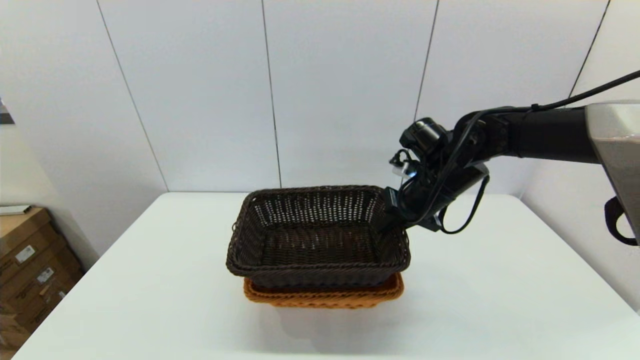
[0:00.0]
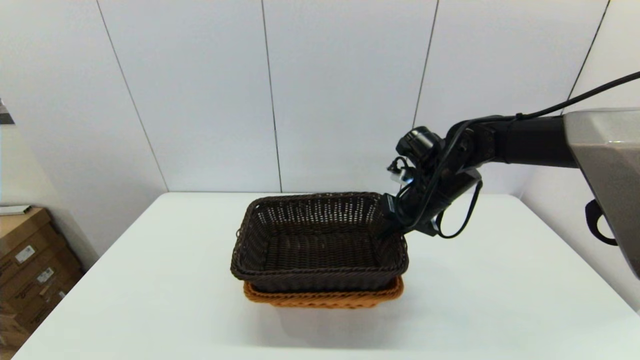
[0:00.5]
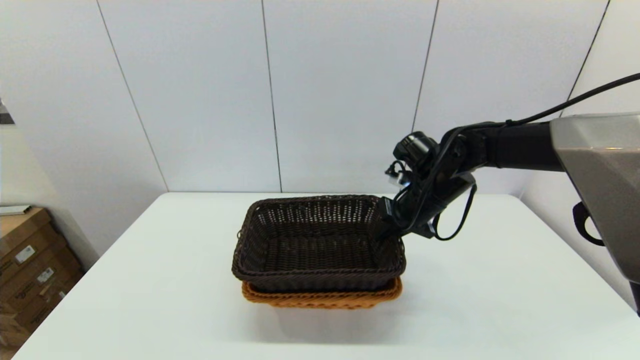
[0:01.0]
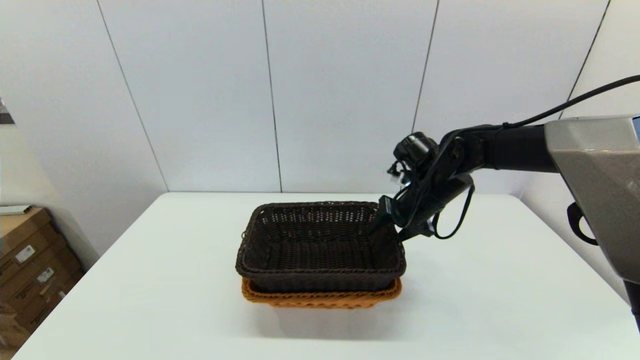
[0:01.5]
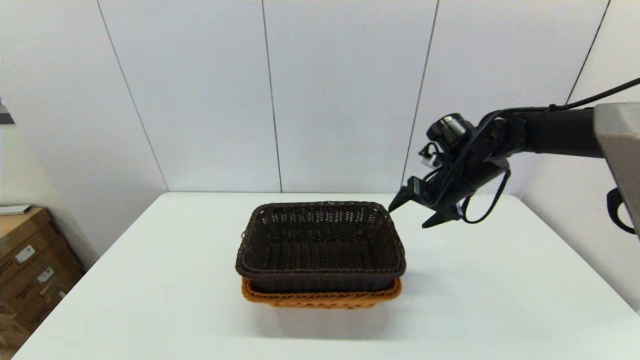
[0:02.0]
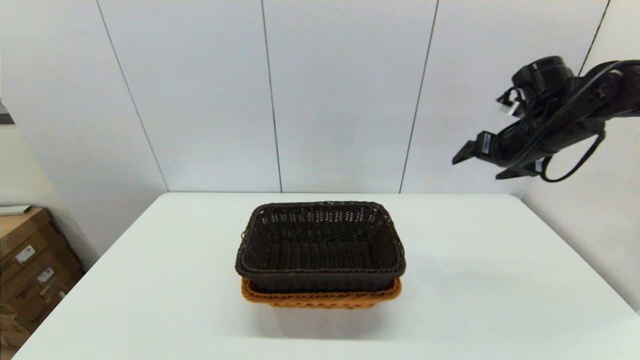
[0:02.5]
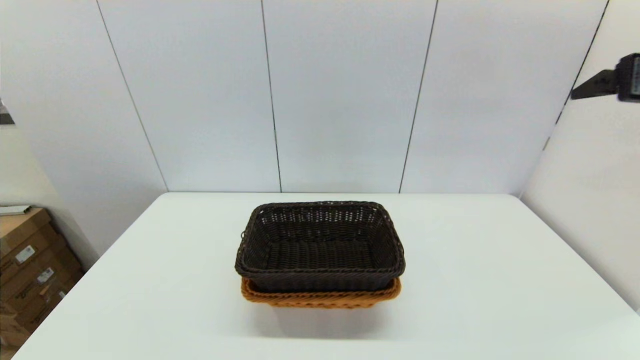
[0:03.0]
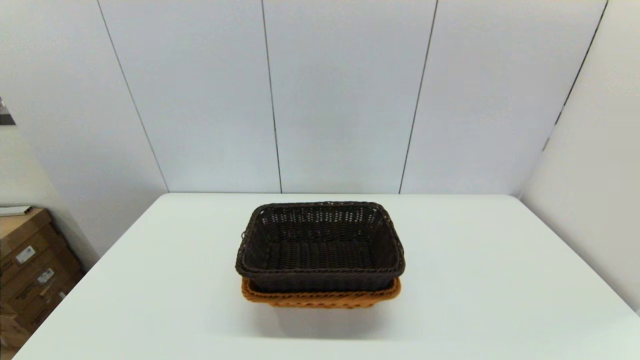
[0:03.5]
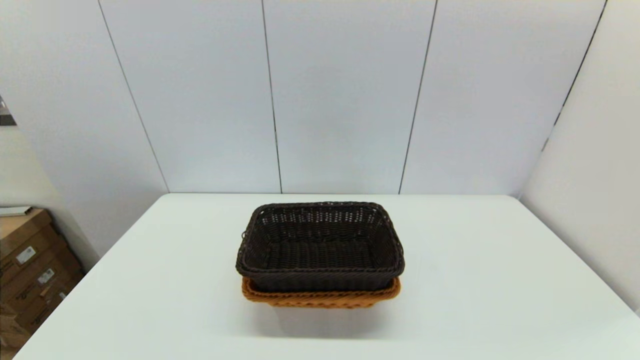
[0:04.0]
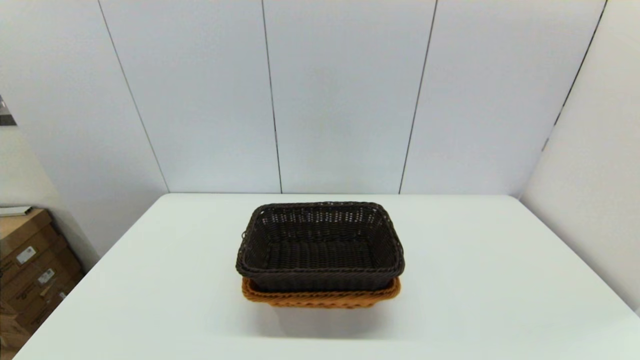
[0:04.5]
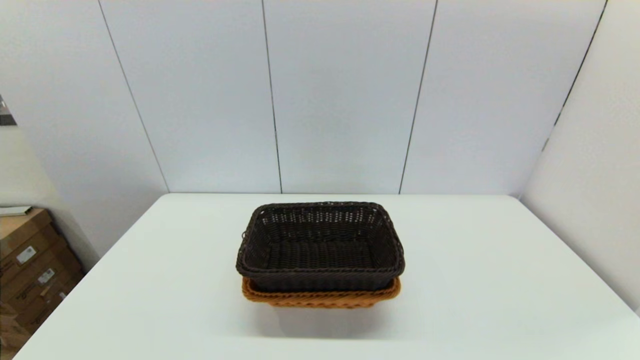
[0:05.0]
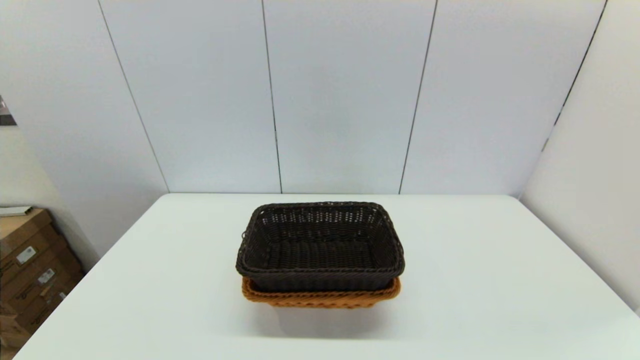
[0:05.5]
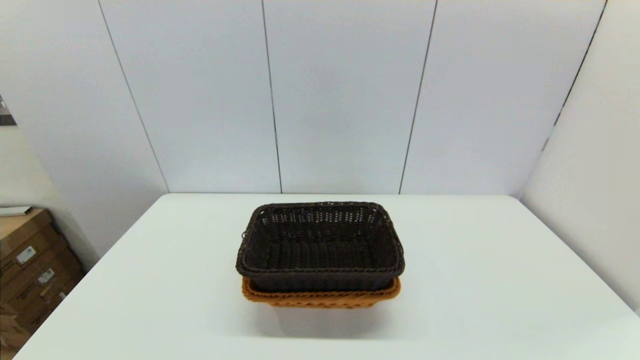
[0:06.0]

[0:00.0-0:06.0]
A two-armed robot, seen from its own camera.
Task of the whole recording: stack a basket on top of another basket.
0:00.0 to 0:02.0: The right gripper heads to the right, covering roughly 5 cm, and opens its fingers.
0:02.0 to 0:04.0: The right gripper is displaced backward by approximately 50 cm.
